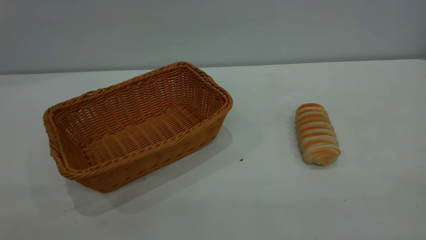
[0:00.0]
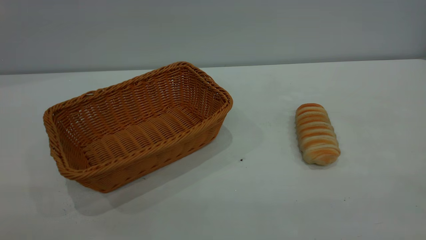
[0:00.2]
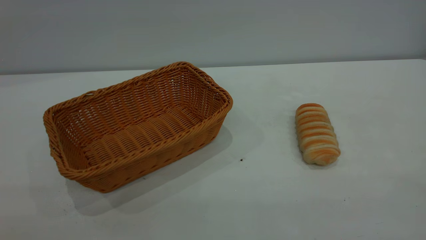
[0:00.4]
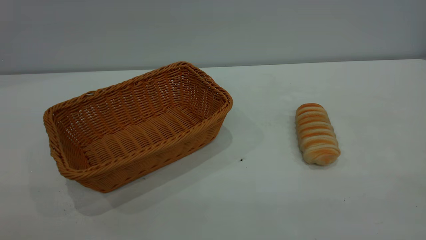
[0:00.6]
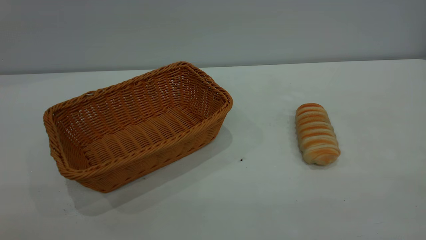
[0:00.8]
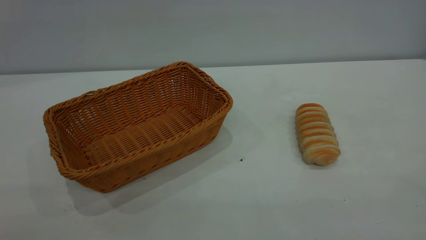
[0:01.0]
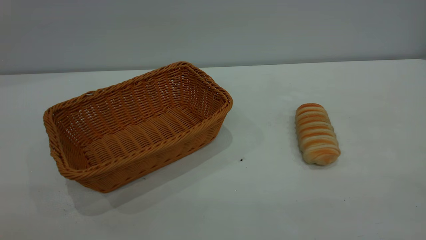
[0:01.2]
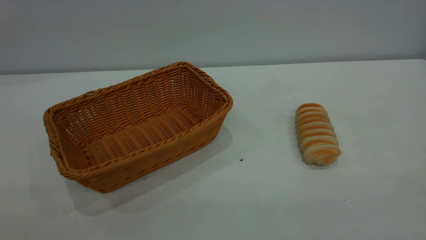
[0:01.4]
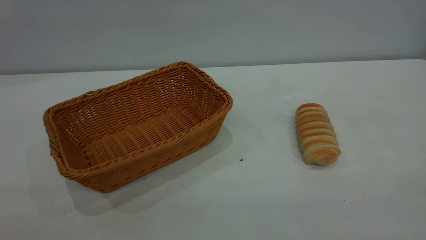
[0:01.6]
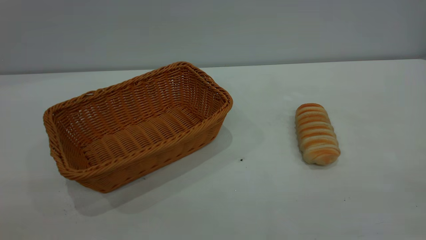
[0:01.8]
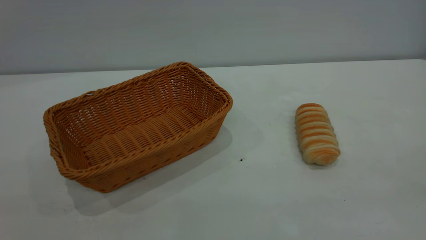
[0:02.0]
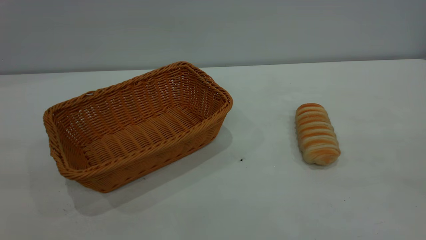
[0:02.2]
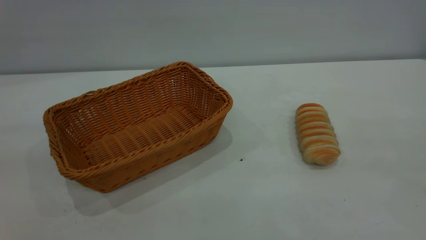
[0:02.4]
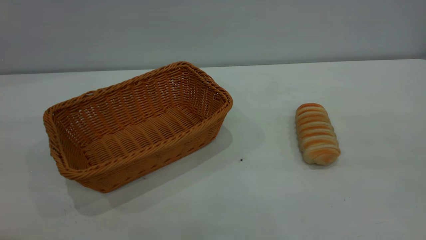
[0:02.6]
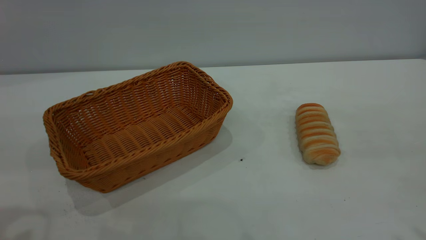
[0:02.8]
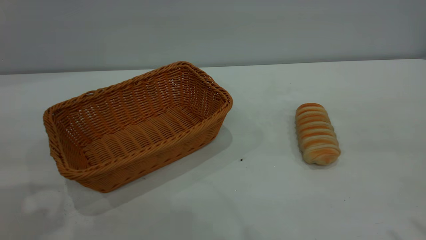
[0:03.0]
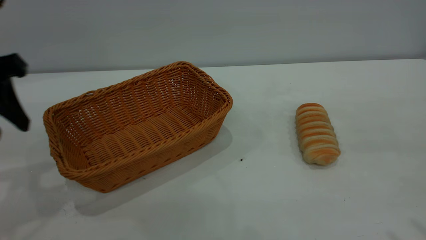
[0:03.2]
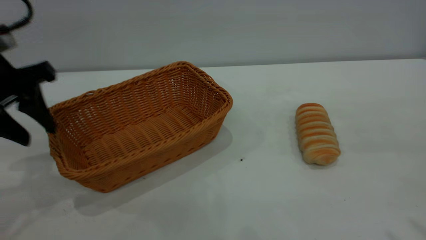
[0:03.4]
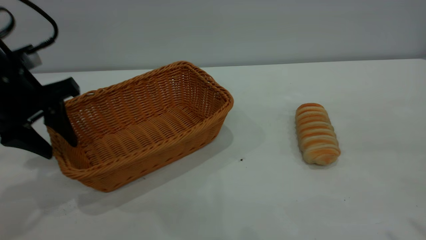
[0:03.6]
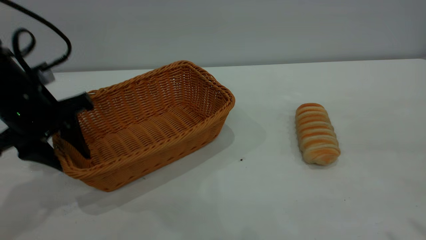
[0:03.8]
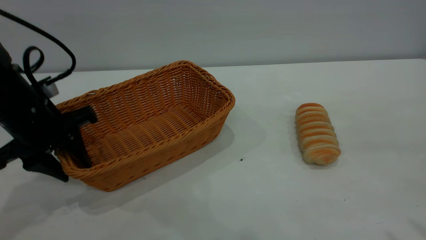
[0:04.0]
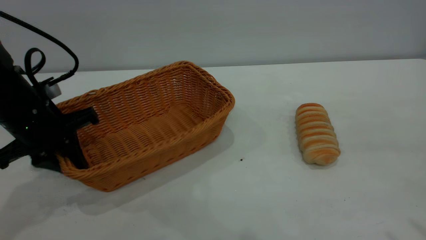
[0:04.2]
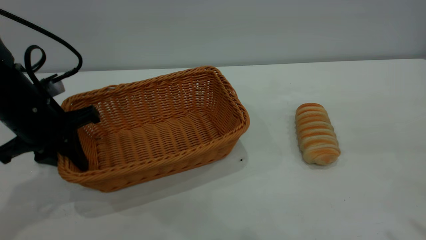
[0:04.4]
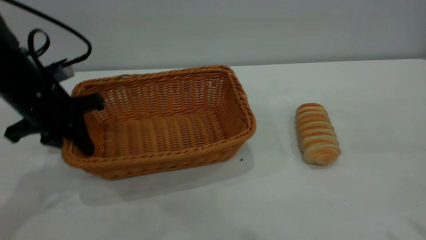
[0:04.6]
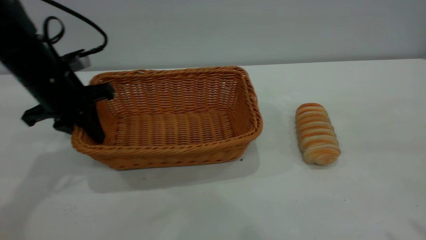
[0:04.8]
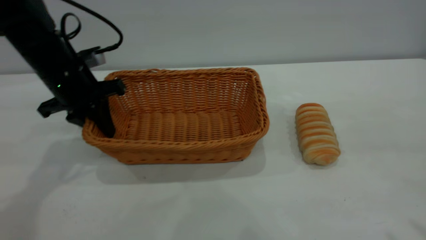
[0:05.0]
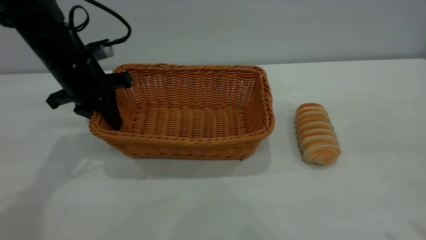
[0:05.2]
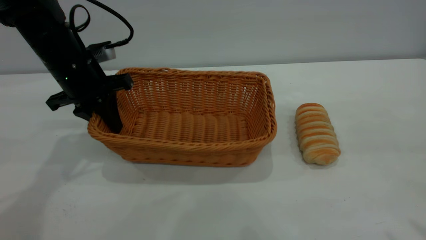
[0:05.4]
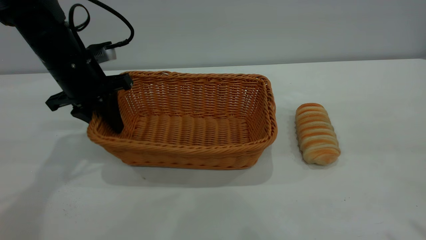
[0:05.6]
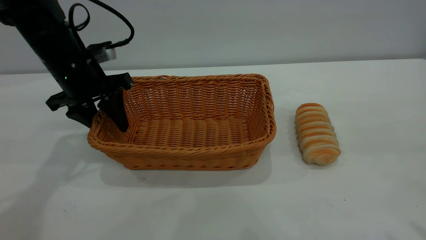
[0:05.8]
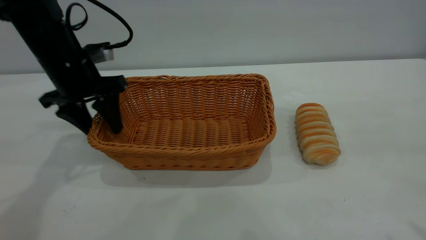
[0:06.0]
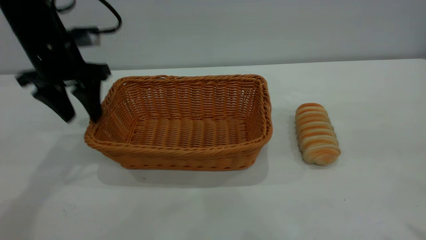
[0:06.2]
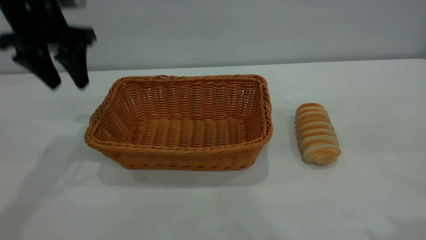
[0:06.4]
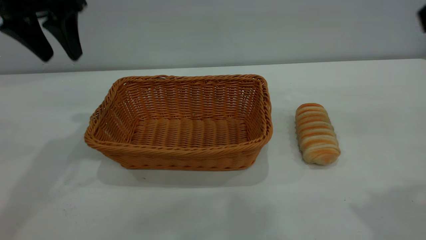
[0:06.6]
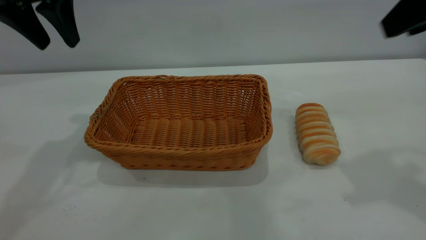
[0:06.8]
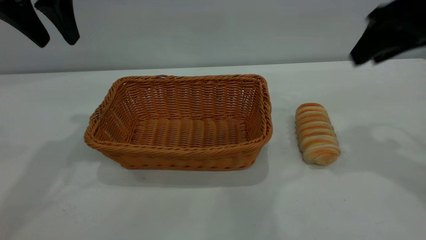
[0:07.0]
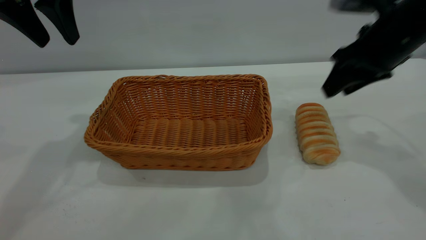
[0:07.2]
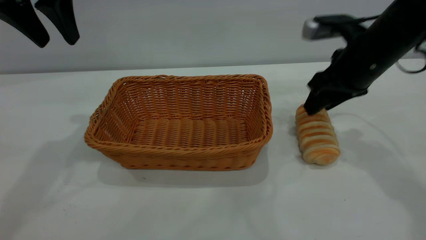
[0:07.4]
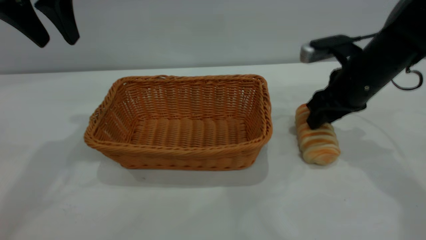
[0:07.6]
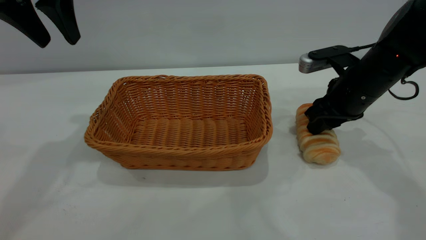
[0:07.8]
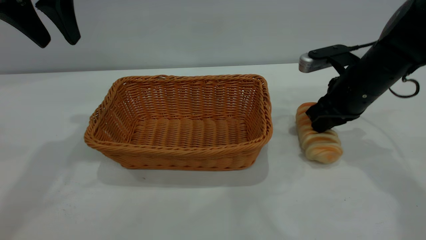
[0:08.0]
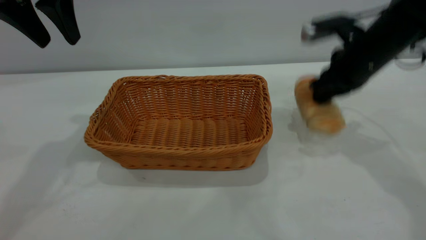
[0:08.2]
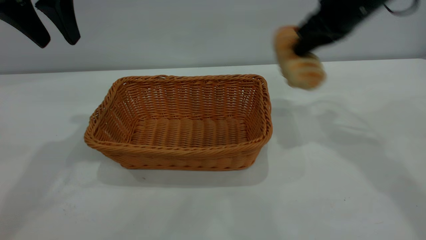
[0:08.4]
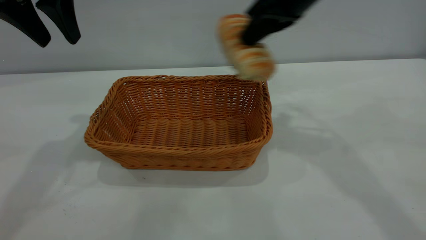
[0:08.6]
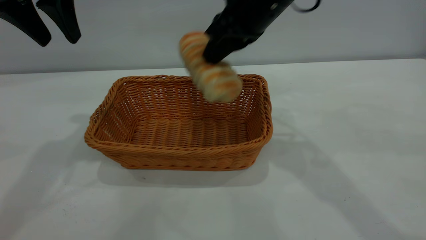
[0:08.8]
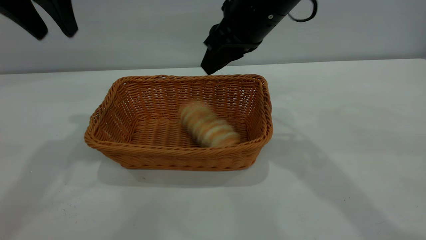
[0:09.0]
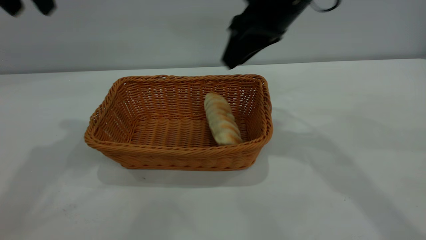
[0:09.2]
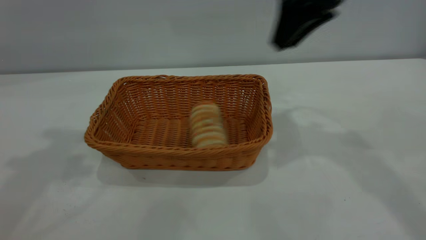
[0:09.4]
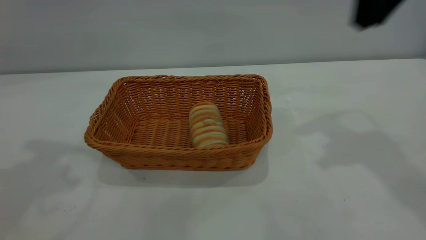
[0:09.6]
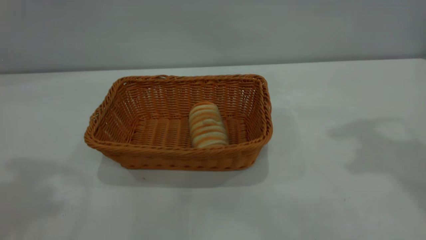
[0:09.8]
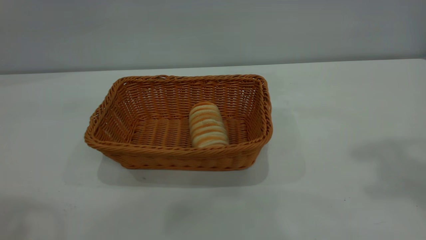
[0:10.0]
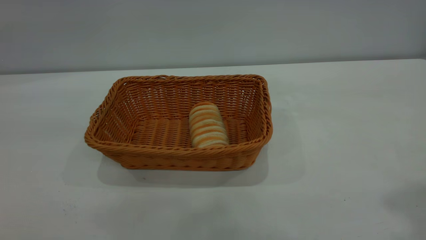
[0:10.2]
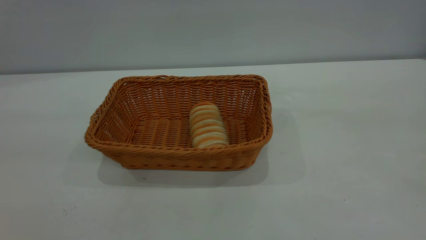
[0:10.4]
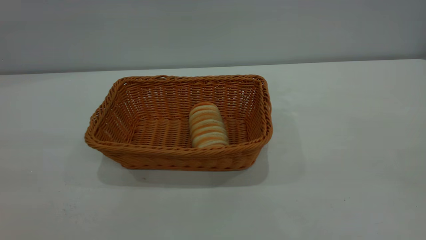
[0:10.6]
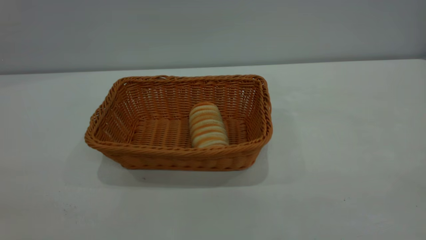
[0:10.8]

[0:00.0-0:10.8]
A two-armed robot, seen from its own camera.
Task of the whole recording: One hand grasps the yellow basket and places it in the middle of the table, while the other hand picks up the long bread and puts it into the yellow basket.
Step, 0:00.0 to 0:06.2: Move the basket to the center of view.
Step, 0:08.2 to 0:09.2: place the bread into the basket.
0:00.0 to 0:01.6: Both grippers stay put.
0:03.0 to 0:04.6: The left gripper moves downward and forward, about 15 cm, and closes up.
0:04.6 to 0:06.2: The left gripper shifts roughly 5 cm forward and upward, and opens.
0:06.2 to 0:07.8: The left gripper heads upward, covering about 10 cm, while the right gripper is displaced forward and downward by about 35 cm.
0:07.8 to 0:09.2: The right gripper is displaced upward and to the left by some 20 cm, and closes and opens again, while the left gripper travels upward by some 5 cm.
0:09.2 to 0:10.8: The left gripper is displaced backward by about 40 cm; the right gripper is displaced backward and to the right by approximately 50 cm.
